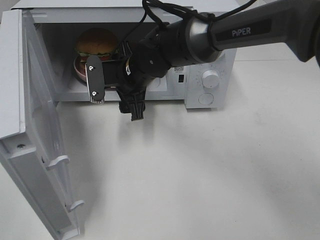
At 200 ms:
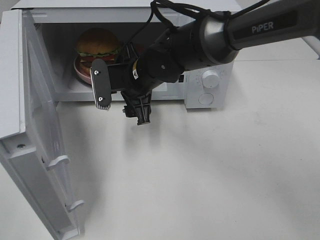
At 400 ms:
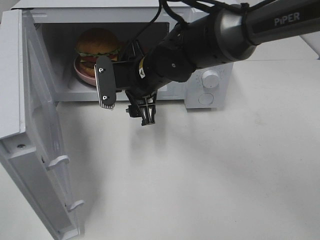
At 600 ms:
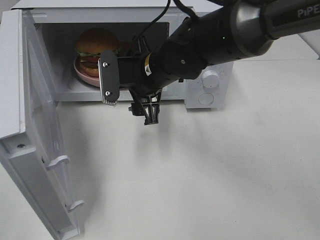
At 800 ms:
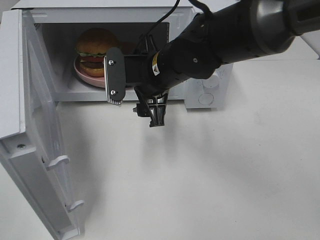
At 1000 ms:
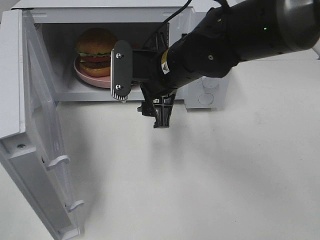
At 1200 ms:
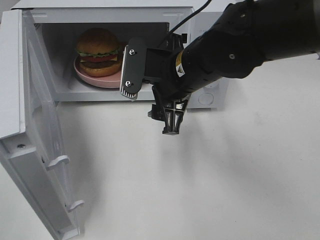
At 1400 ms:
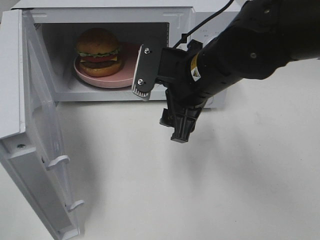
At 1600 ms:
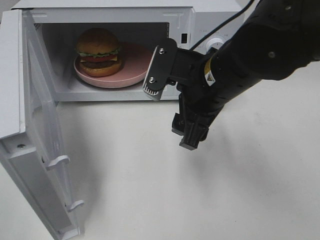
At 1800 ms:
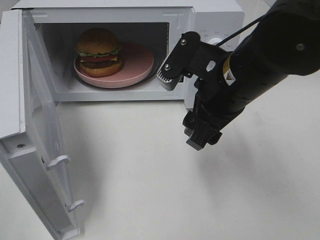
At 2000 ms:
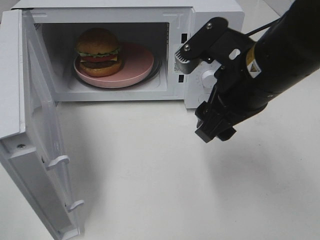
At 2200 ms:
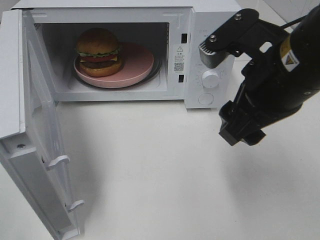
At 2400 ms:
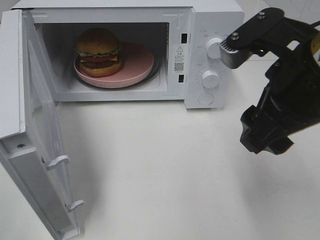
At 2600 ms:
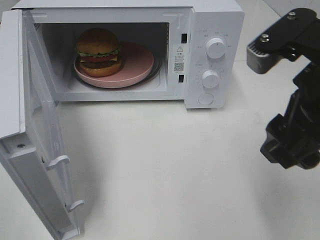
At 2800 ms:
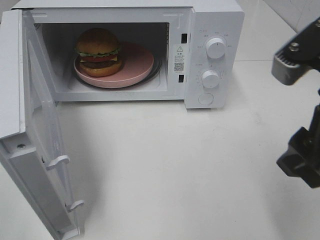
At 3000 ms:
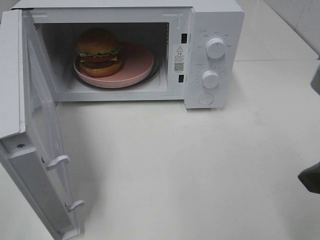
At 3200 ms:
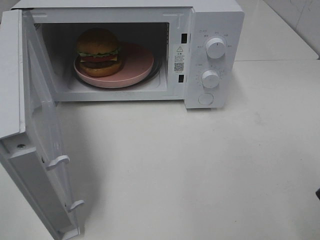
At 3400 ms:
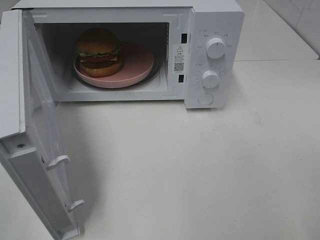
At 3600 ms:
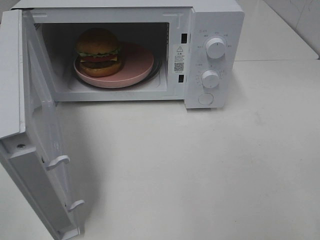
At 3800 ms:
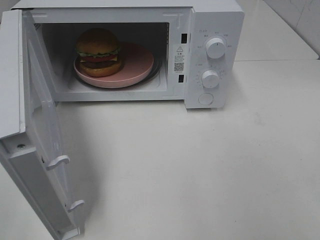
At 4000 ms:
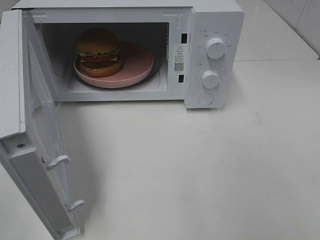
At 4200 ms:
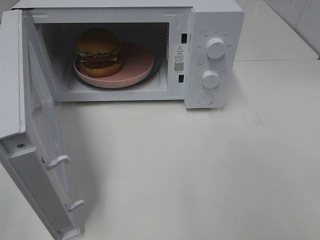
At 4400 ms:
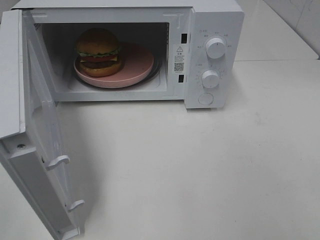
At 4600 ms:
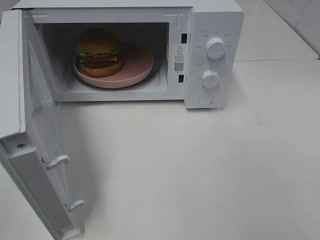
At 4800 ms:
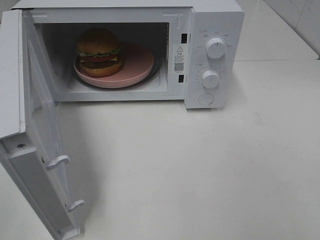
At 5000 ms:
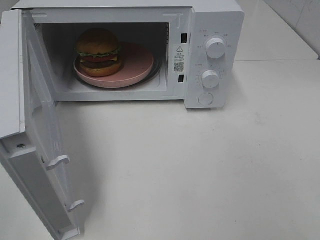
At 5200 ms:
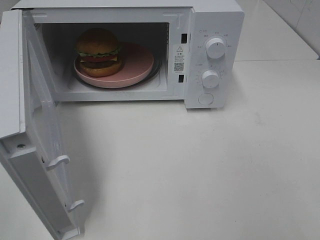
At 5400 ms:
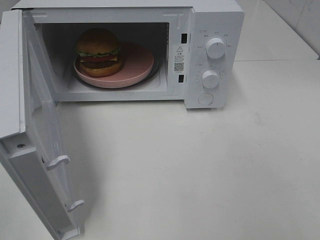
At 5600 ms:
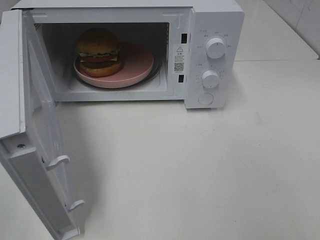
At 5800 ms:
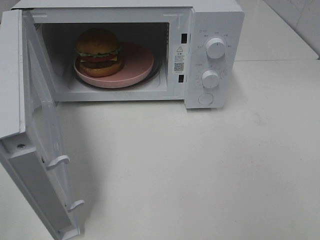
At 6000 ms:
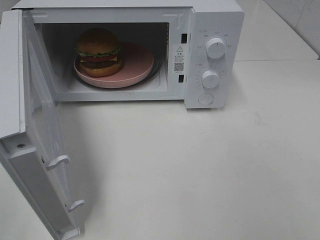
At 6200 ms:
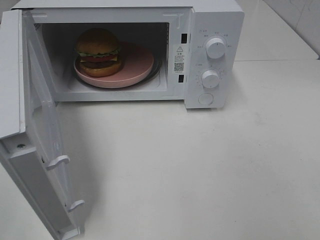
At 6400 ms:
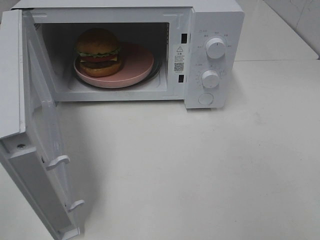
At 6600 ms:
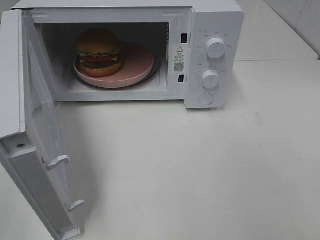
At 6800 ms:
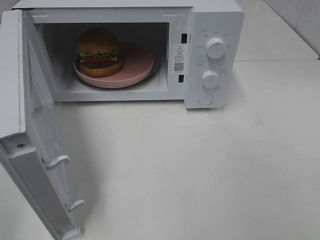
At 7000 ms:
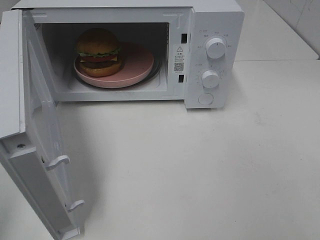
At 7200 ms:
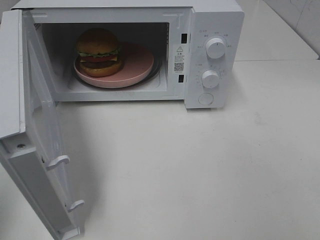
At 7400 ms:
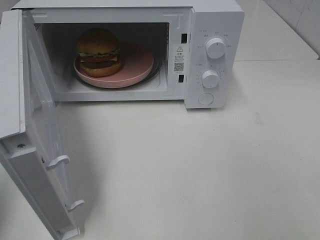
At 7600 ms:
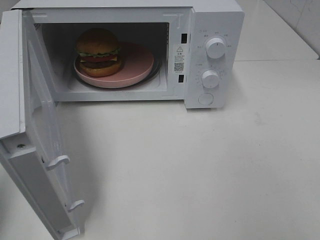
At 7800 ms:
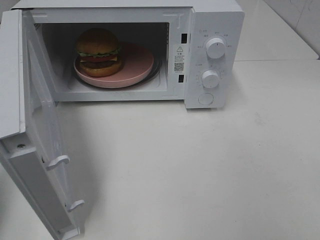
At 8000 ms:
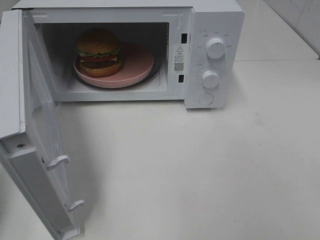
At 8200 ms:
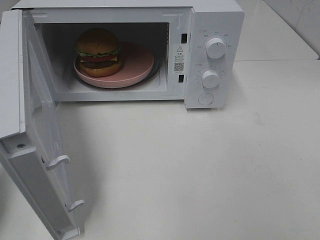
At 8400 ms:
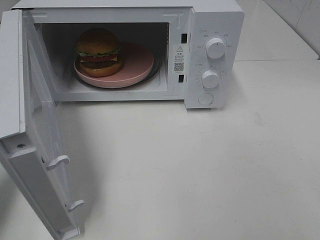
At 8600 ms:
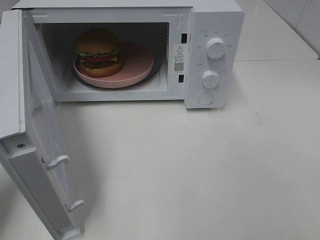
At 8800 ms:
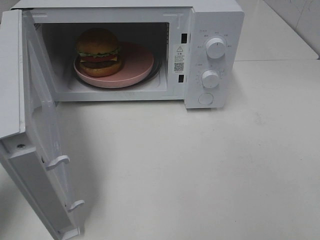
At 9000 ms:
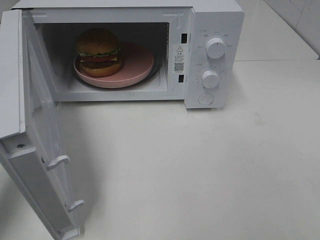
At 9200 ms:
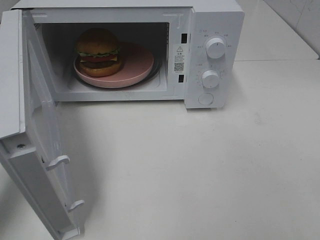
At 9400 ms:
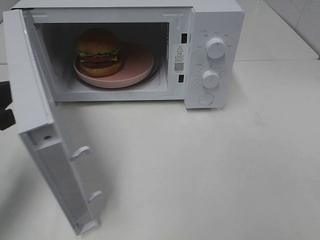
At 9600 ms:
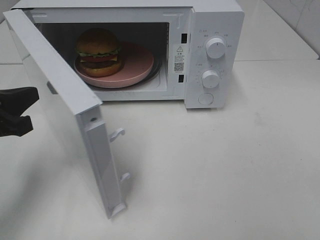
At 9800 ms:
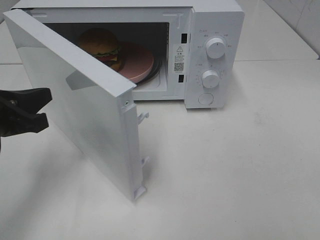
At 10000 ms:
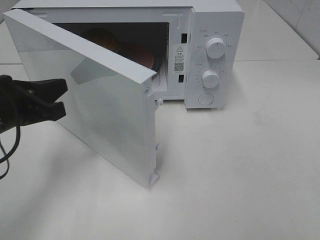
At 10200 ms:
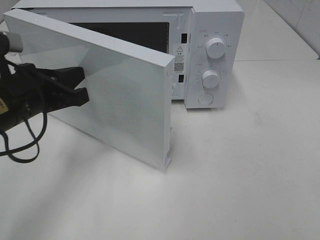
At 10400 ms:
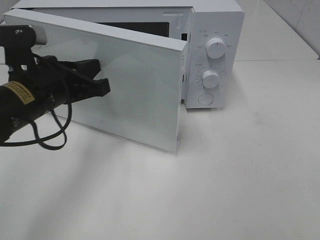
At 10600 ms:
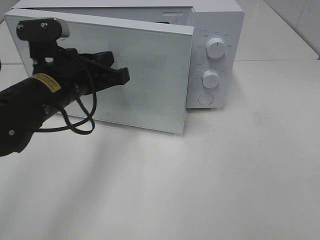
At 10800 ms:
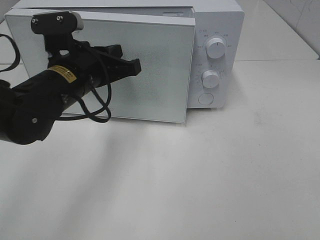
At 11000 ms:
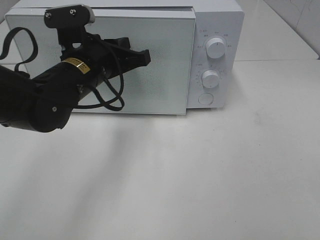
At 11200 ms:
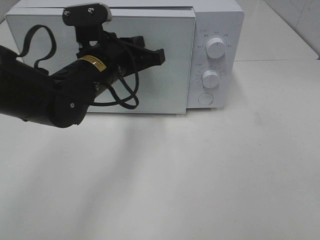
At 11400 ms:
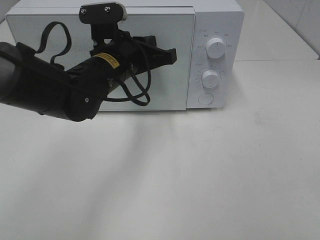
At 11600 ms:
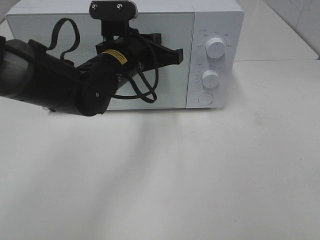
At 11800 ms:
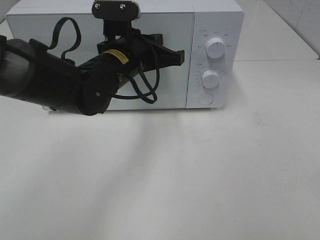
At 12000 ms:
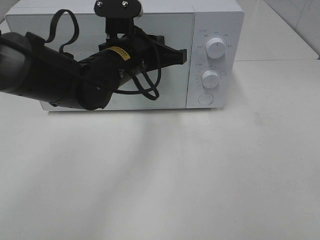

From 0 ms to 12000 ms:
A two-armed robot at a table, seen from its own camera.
Task of the whole recording: Heat the burger.
From 0 ms to 1600 ms: The right gripper moves backward, to the right and upward, some 20 cm.
From 1600 ms to 3000 ms: The right gripper goes about 20 cm backward, to the right and upward.
From 3000 ms to 4400 ms: The right gripper heads backward and to the right, covering about 15 cm.
From 4400 ms to 6000 ms: The two grippers keep their place.
From 7600 ms to 9000 ms: The left gripper shifts some 10 cm forward and downward.
From 9000 ms to 10400 ms: The left gripper shifts some 15 cm to the right and forward.
From 10400 ms to 12000 ms: The left gripper goes roughly 15 cm to the right and forward.

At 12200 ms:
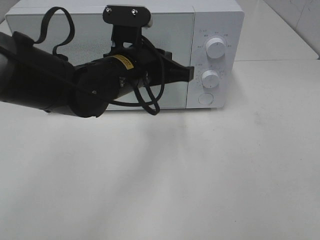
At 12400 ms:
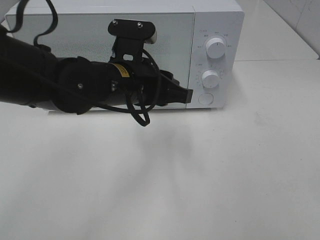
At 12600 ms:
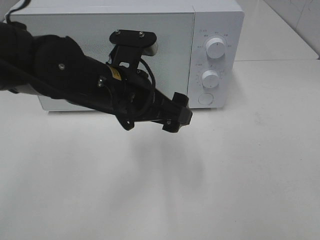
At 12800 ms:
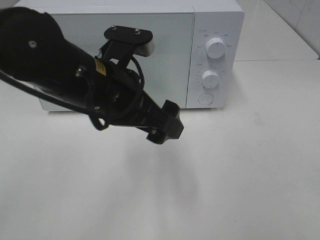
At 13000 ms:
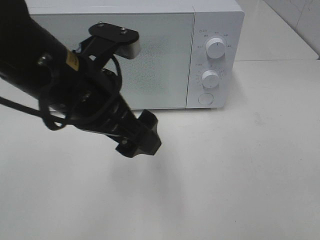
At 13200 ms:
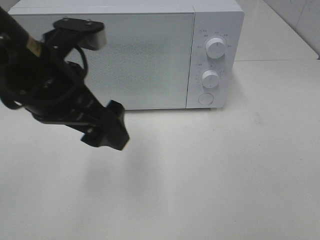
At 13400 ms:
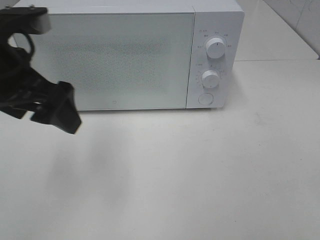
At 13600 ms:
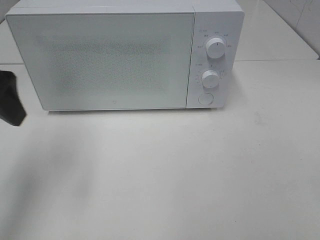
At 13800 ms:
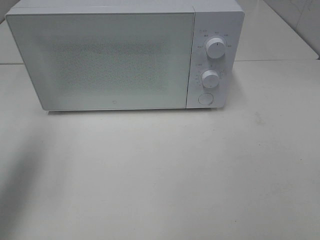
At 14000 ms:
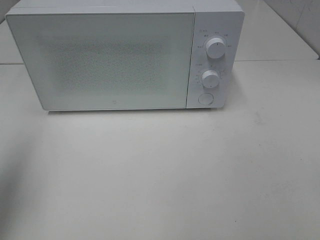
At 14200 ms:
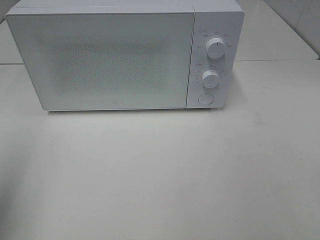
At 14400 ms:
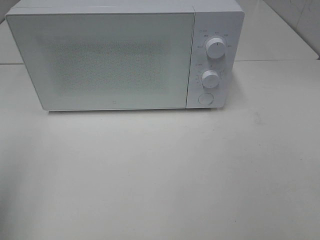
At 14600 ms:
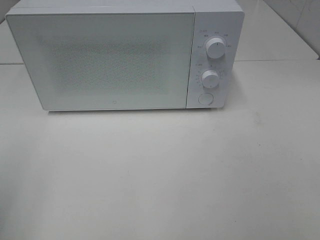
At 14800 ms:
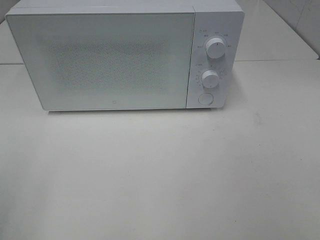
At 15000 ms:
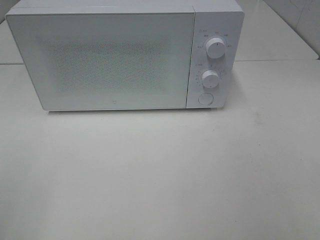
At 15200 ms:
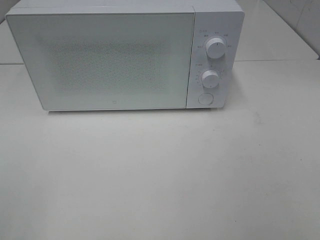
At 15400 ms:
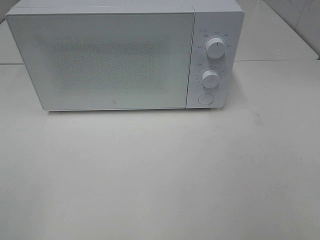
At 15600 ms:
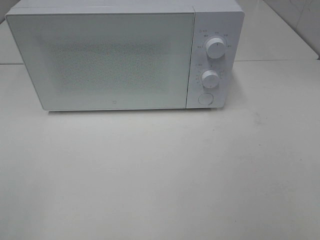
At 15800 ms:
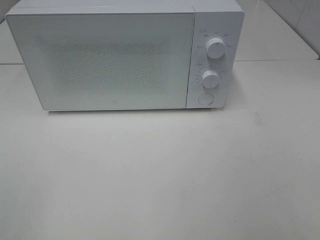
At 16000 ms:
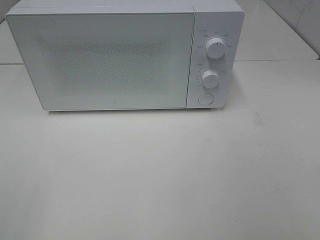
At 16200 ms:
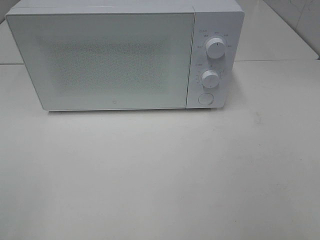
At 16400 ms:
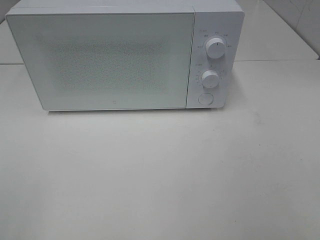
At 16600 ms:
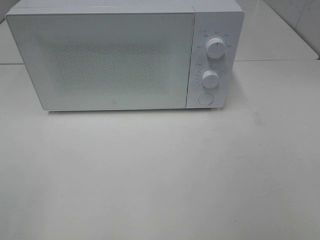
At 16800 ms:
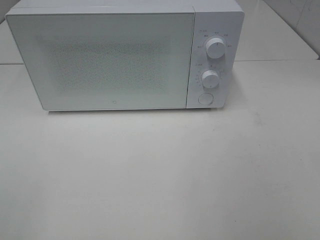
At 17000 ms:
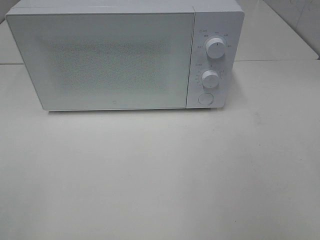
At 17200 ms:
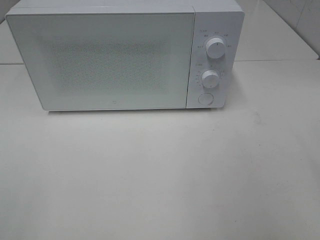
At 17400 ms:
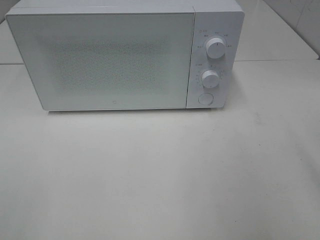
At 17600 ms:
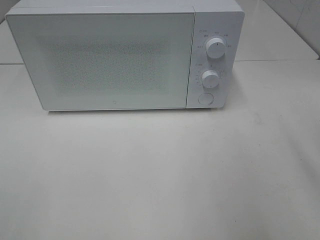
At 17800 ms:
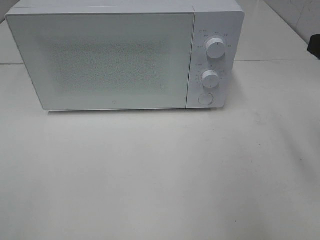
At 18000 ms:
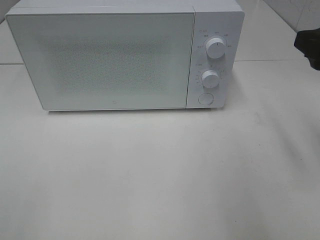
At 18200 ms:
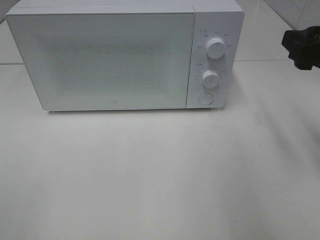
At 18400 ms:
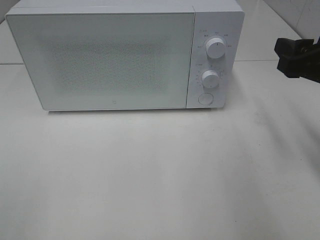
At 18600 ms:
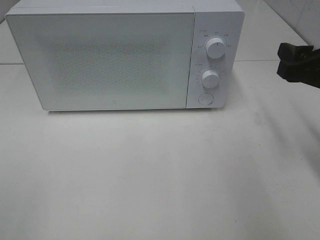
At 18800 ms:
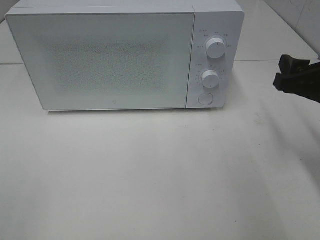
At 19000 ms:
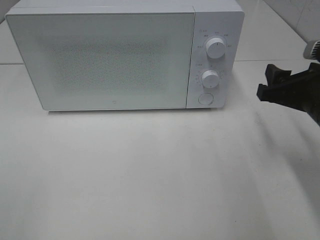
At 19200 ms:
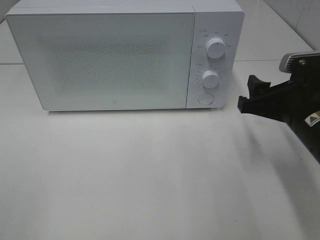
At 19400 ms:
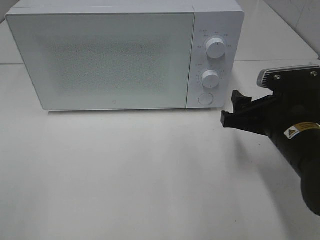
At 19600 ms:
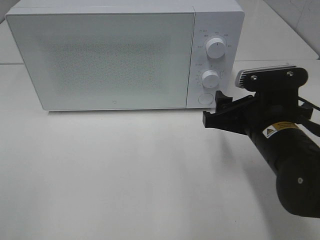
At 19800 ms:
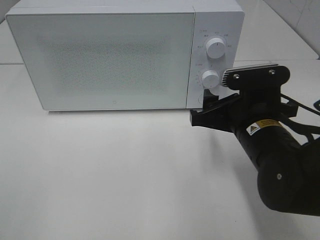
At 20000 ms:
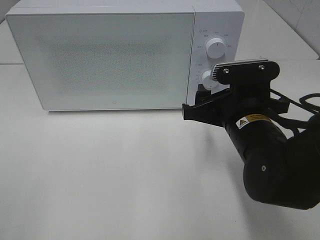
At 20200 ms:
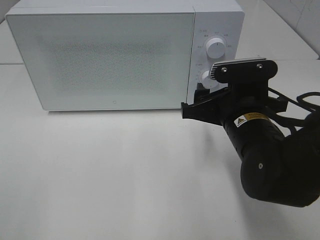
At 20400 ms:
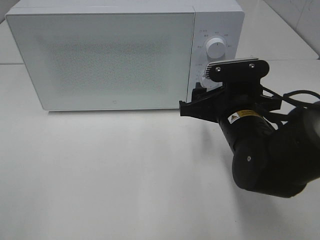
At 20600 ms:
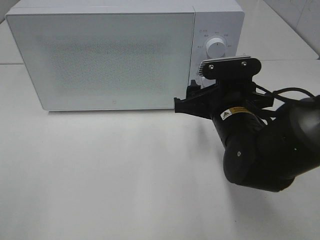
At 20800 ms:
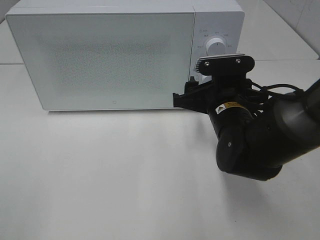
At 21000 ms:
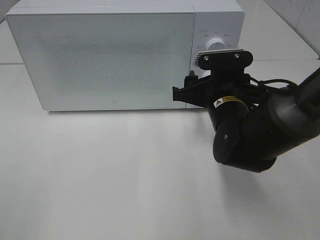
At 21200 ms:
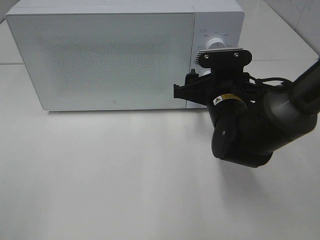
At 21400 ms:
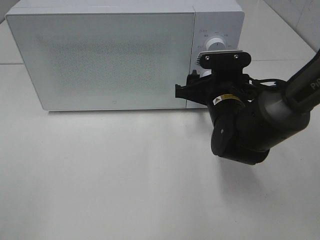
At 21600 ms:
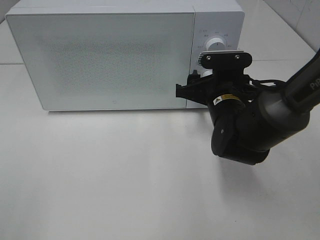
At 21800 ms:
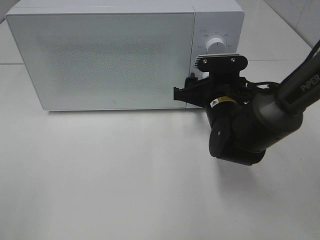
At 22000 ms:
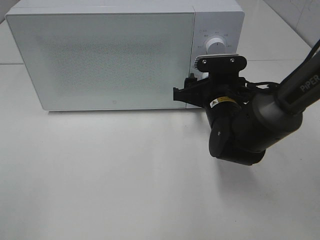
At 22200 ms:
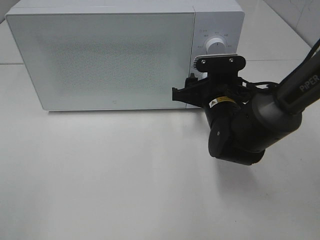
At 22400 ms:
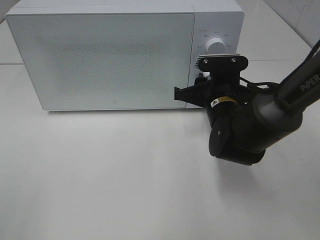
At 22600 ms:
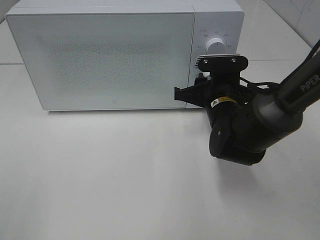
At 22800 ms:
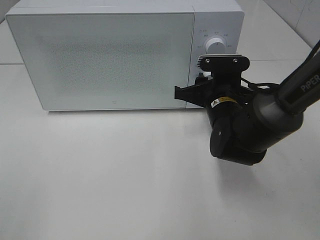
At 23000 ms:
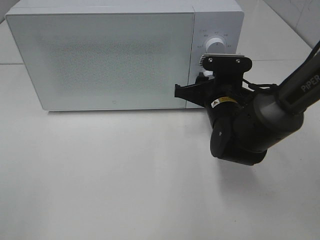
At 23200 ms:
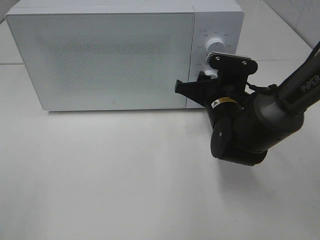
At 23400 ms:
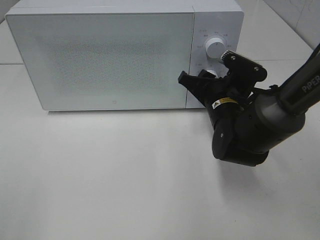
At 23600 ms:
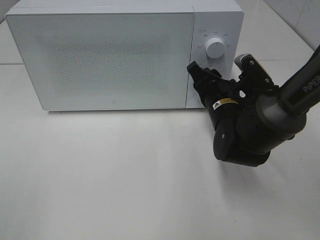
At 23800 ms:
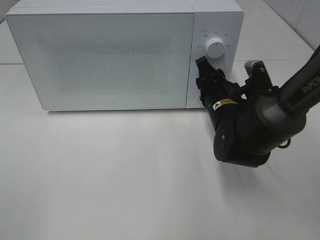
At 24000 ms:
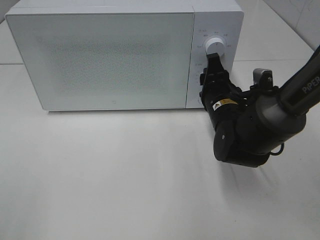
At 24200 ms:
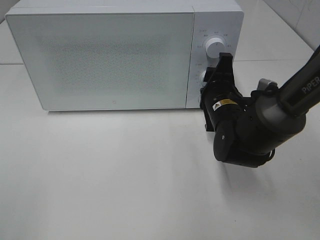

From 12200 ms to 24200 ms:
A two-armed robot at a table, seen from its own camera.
Task of the whole recording: Heat the burger.
From 12200 ms to 13800 ms: The left gripper heads to the left and upward, covering about 30 cm, and opens up.
From 13800 ms to 15200 ms: The left gripper is displaced backward by roughly 20 cm.
From 15200 ms to 16600 ms: Both grippers stay about where they are.
From 16600 ms to 18200 ms: The right gripper moves forward, about 20 cm.
From 18200 ms to 19800 ms: The right gripper moves to the left and downward, approximately 15 cm.
From 19800 ms to 21200 ms: The right gripper shifts roughly 10 cm forward.
From 21200 ms to 22600 ms: The grippers move only a little.
